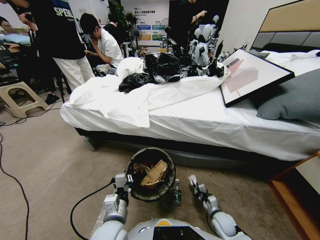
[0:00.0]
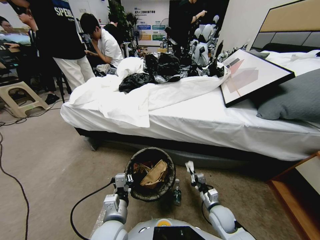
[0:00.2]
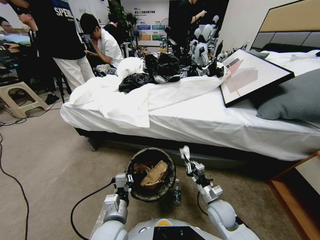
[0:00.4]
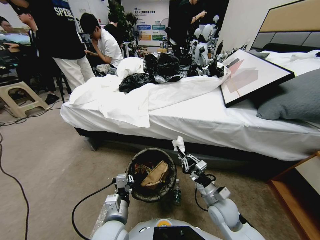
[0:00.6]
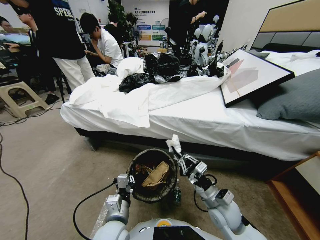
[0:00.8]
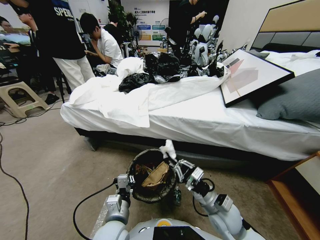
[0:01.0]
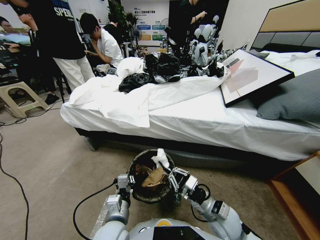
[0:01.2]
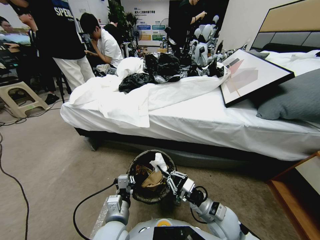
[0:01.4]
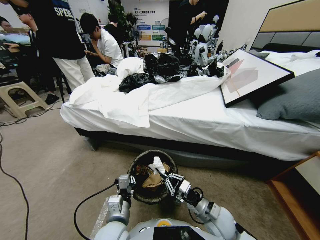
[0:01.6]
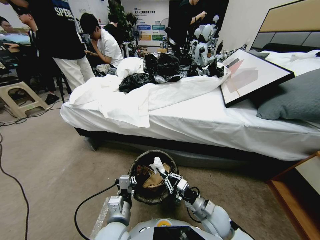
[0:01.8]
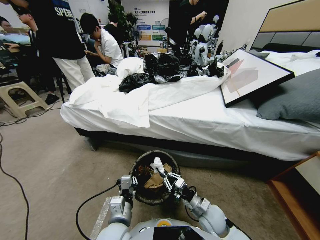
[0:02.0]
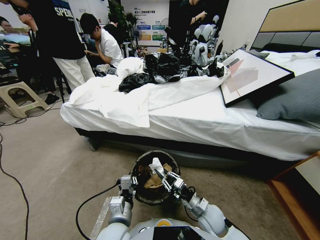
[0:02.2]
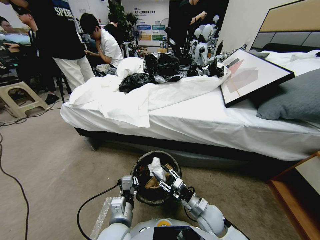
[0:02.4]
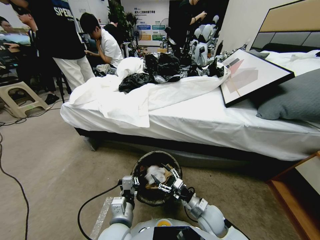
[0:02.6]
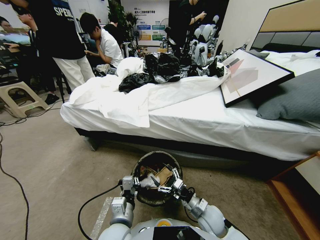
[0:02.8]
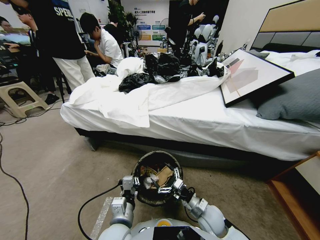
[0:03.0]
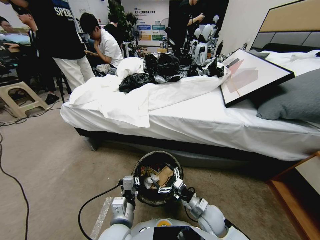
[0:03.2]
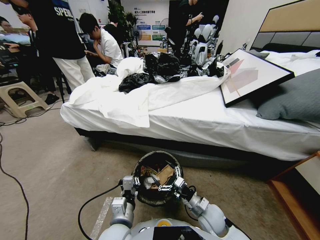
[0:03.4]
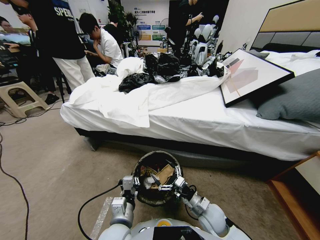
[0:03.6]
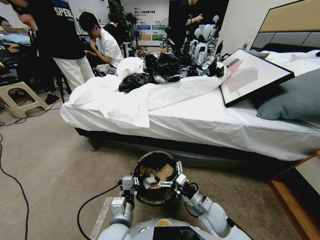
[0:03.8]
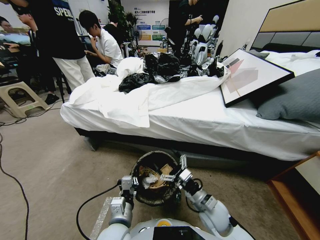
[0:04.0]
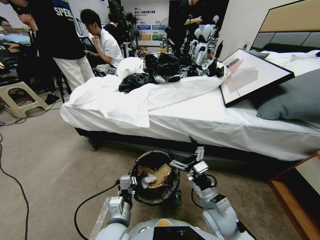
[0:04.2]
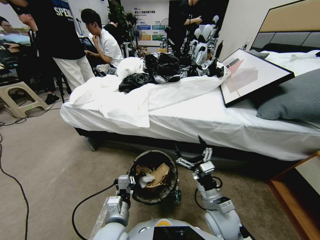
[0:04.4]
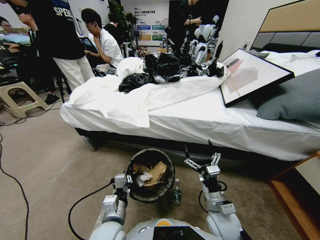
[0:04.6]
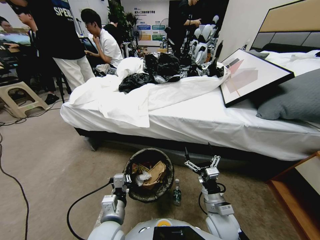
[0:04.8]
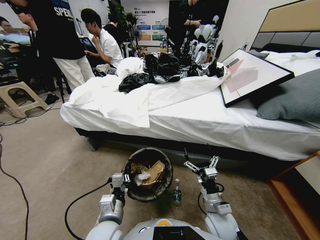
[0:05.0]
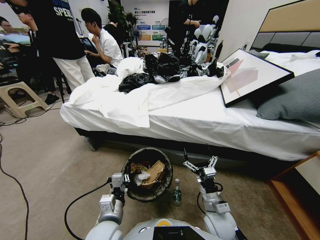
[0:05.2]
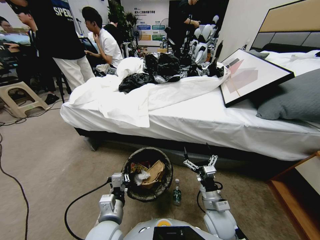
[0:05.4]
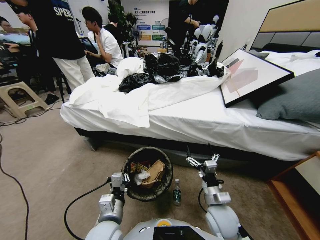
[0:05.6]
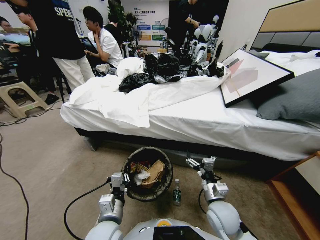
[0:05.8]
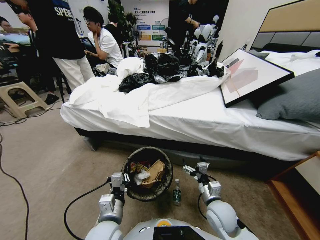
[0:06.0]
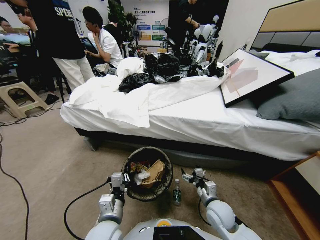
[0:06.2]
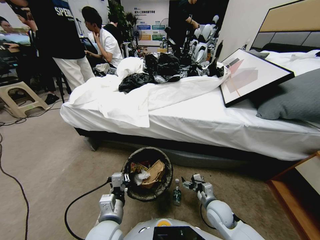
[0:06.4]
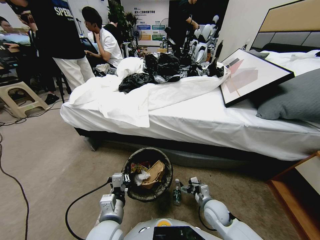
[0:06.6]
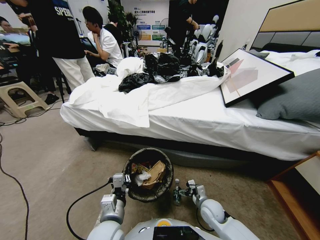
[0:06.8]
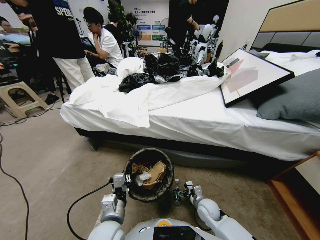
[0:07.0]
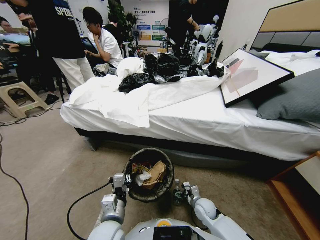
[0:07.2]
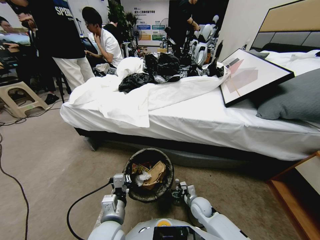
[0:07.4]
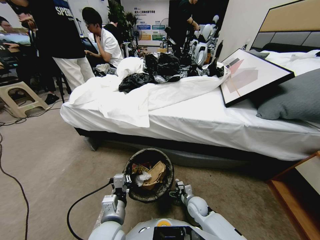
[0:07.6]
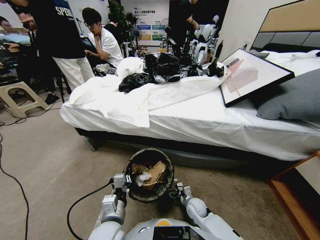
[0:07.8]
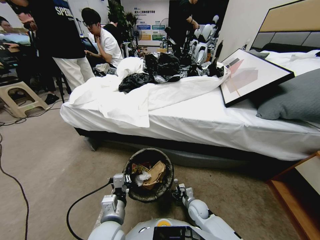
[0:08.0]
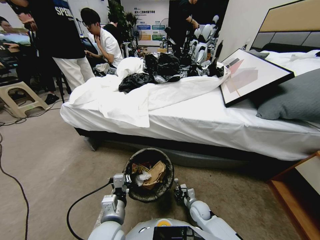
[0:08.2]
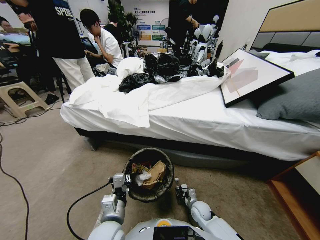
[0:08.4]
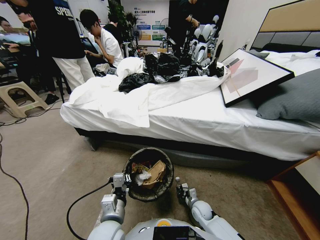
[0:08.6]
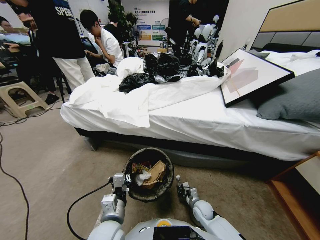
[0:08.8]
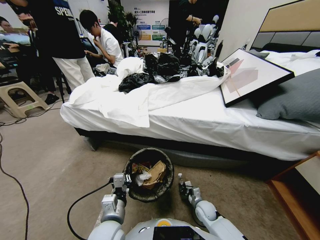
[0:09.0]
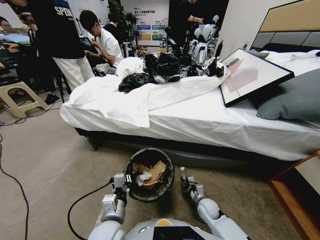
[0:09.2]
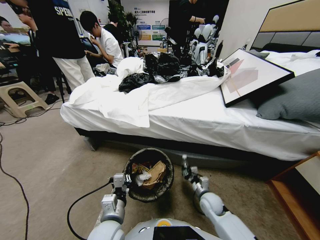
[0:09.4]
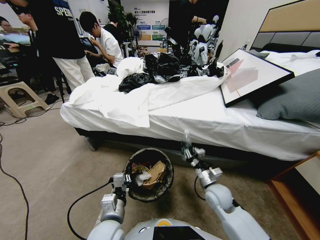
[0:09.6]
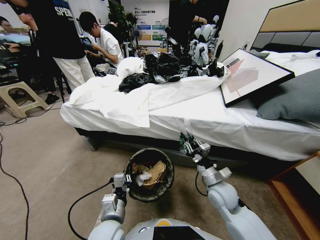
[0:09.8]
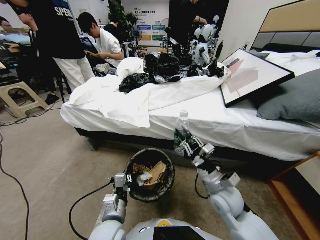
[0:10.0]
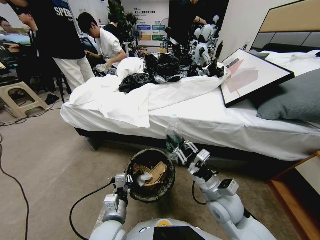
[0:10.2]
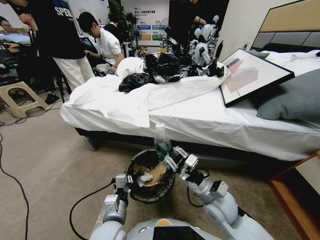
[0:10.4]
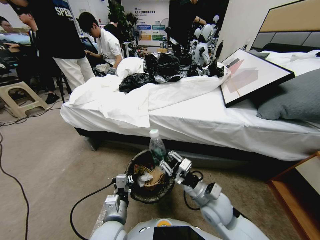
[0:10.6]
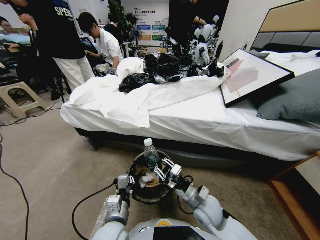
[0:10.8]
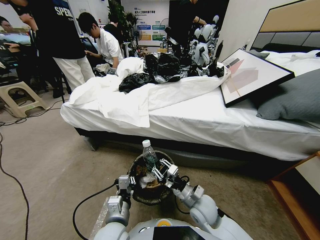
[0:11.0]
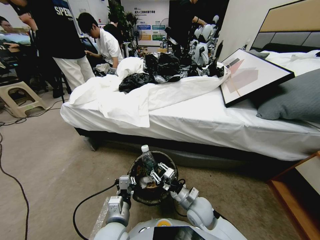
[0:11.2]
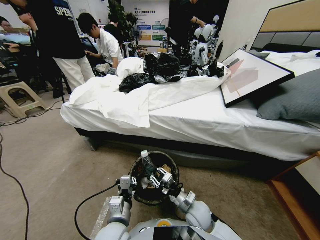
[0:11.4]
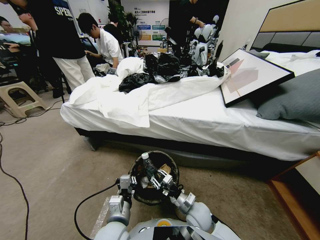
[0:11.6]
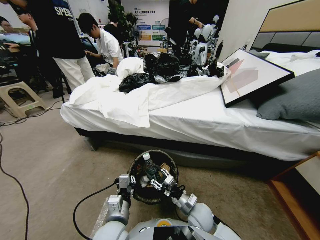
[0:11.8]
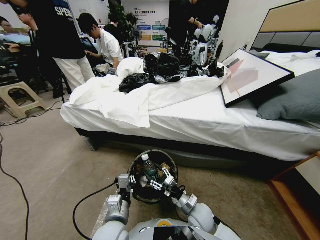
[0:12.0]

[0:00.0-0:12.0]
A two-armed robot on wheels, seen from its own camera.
Task of the whole recording: Pick up the trash bin, then pick up the garbage from the floor and place it into the trash bin.
0:00.0 to 0:01.6: The right gripper goes roughly 15 cm upward and to the left.
0:01.6 to 0:03.0: The right gripper opens up.
0:03.0 to 0:04.4: The right gripper heads upward, covering roughly 10 cm.
0:04.4 to 0:06.0: The right gripper is displaced downward by some 5 cm.
0:06.0 to 0:07.6: The right gripper heads downward, covering about 15 cm.
0:07.6 to 0:09.0: The right gripper heads to the right, covering roughly 5 cm, and closes up.
0:09.0 to 0:10.4: The right gripper shifts some 25 cm upward.
0:10.4 to 0:12.0: The right gripper travels downward by about 10 cm, and opens its fingers.

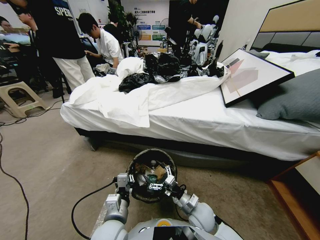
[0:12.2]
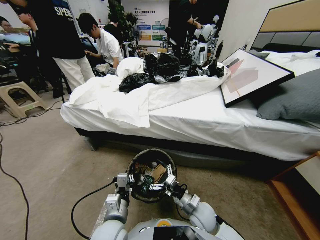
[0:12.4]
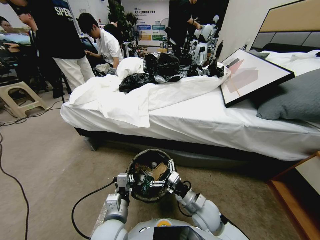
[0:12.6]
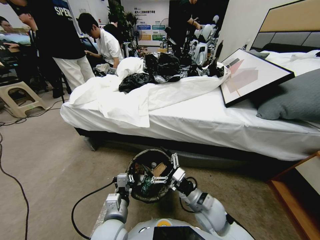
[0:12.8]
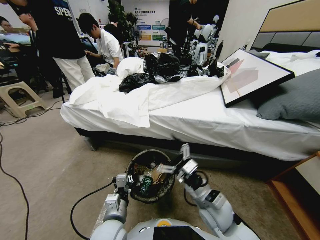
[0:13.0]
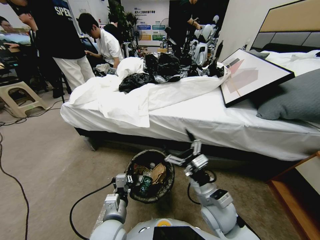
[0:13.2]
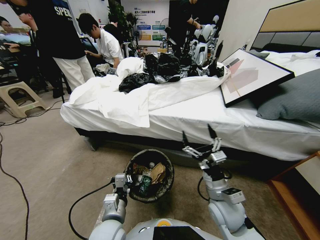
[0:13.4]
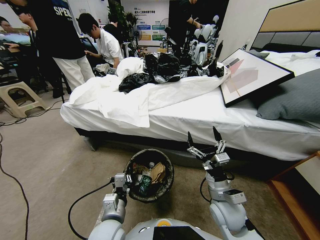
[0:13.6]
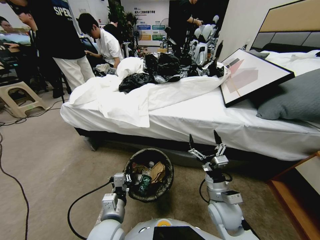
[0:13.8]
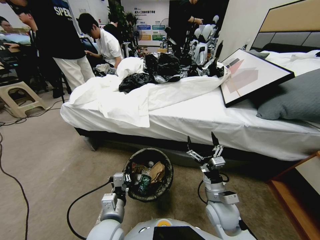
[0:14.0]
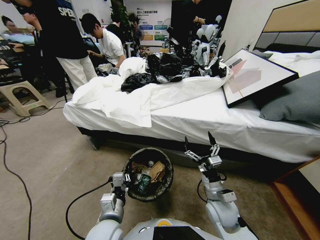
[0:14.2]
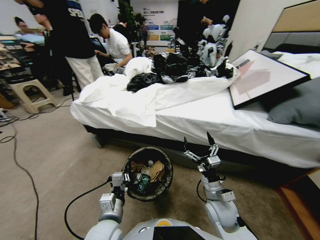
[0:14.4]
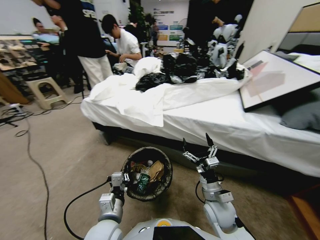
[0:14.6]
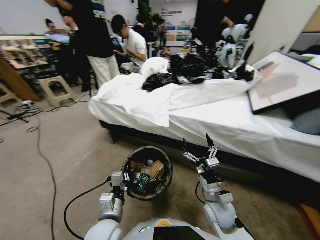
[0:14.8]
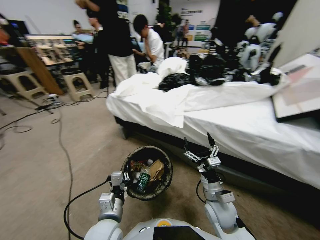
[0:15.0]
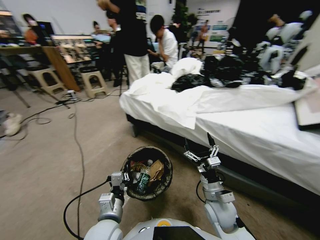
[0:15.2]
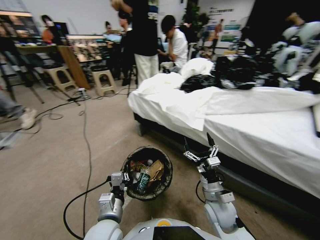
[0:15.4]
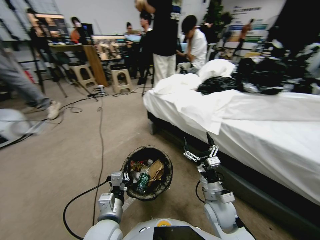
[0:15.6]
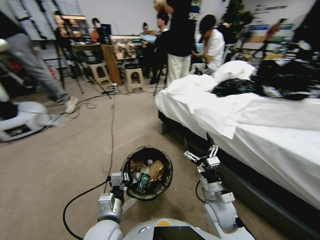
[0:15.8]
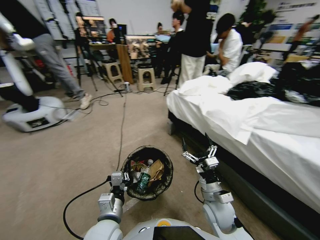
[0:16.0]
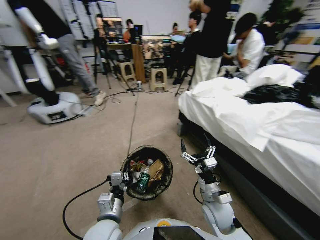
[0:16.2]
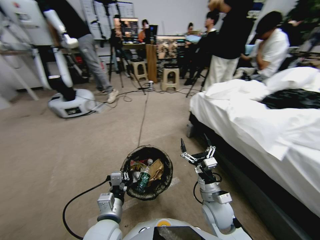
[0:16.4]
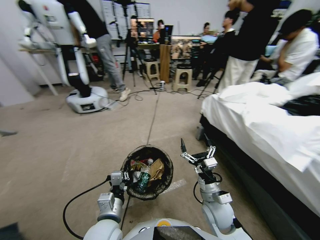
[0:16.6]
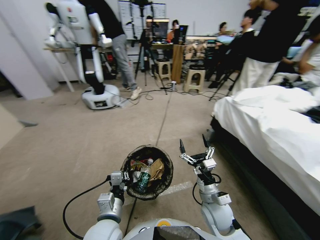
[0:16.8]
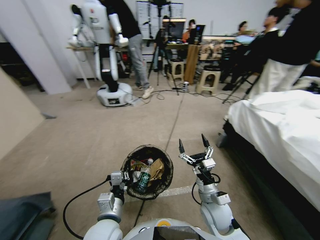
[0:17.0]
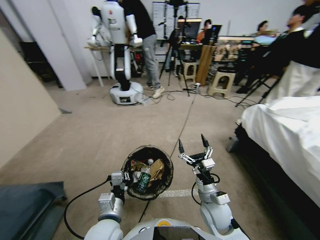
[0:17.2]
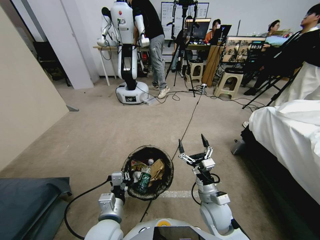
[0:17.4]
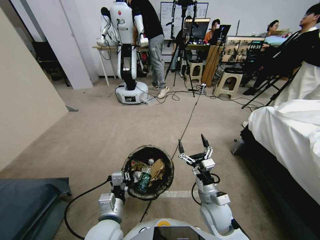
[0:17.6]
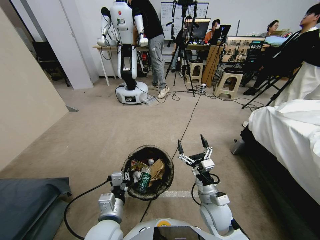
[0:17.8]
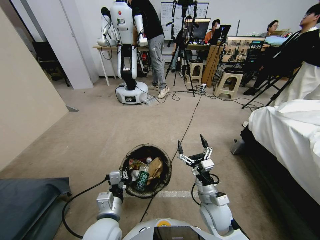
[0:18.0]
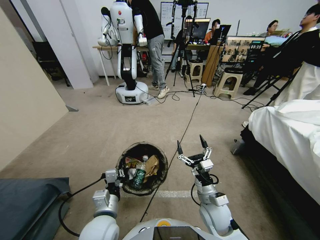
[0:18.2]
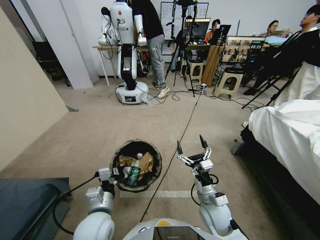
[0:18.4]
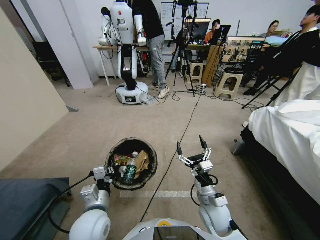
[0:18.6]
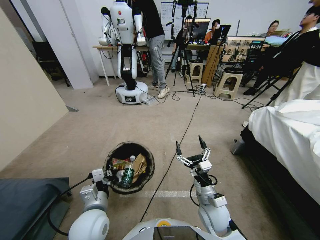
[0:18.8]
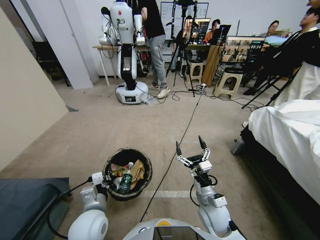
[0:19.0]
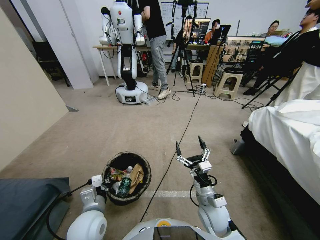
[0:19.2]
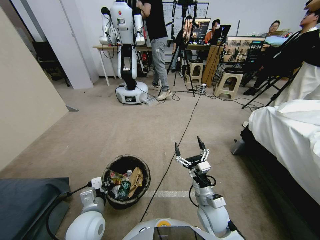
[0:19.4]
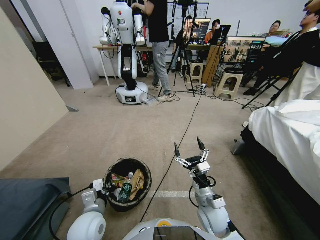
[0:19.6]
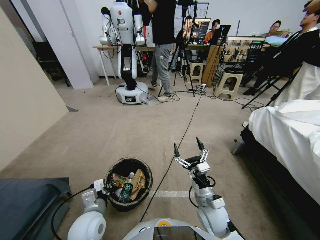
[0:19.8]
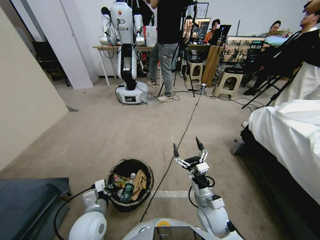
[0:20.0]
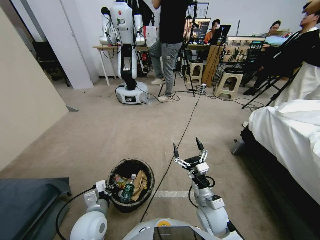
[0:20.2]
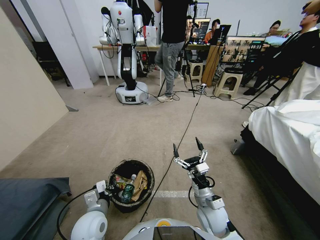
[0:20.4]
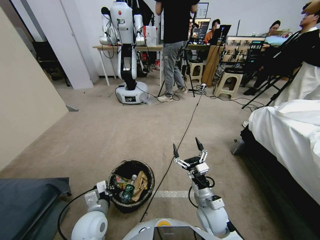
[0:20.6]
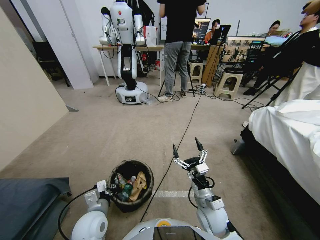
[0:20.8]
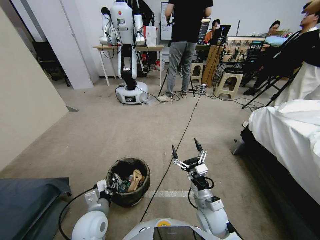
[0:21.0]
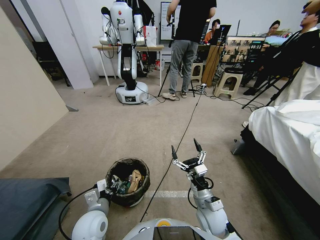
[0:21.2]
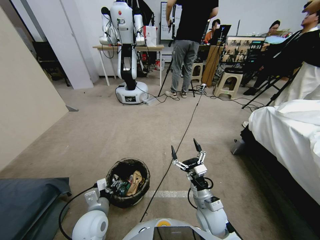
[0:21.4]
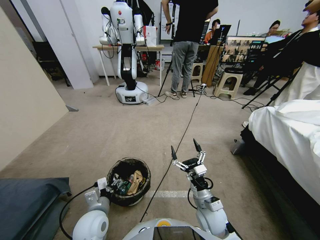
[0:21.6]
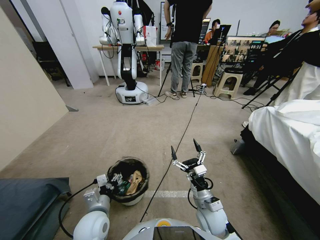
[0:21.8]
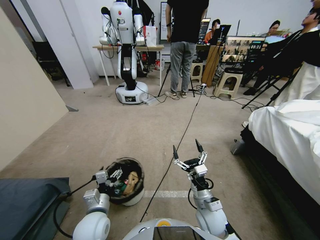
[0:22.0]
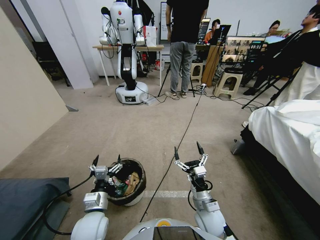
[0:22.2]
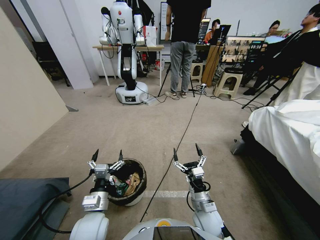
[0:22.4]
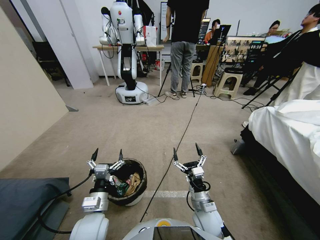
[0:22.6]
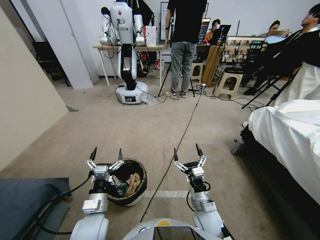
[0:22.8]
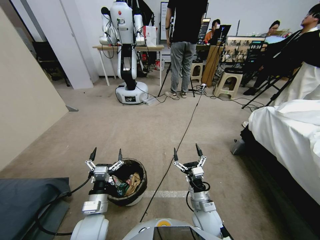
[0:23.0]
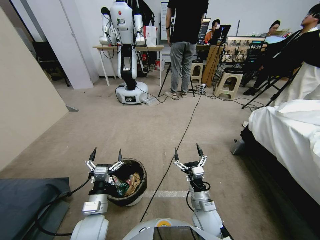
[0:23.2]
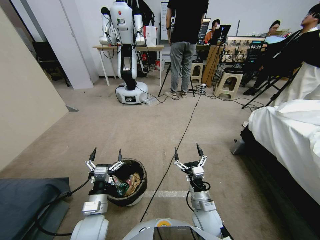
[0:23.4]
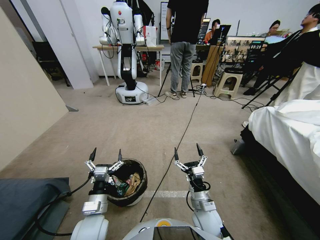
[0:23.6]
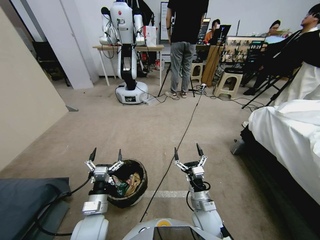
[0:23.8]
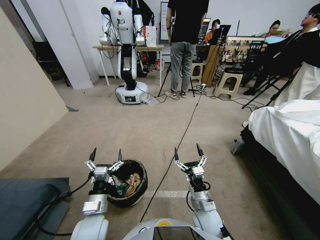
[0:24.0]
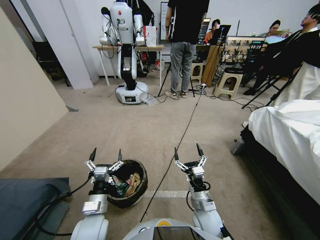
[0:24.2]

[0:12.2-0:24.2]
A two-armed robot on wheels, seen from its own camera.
Task of the whole recording: Pick up the trash bin, then pick up the garbage from the floor and place it into the trash bin.
0:12.2 to 0:13.8: The right gripper travels upward by about 5 cm.
0:18.2 to 0:19.8: The left gripper ends up approximately 5 cm from where it was.
0:19.8 to 0:21.2: The left gripper opens its fingers.
0:22.6 to 0:24.2: Both grippers stay put.
